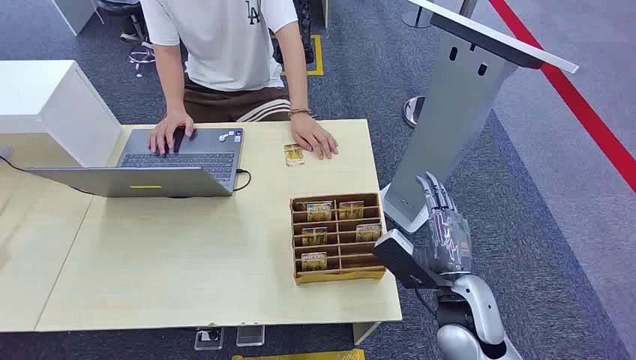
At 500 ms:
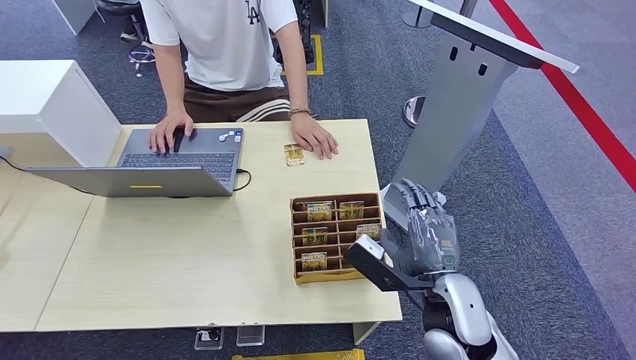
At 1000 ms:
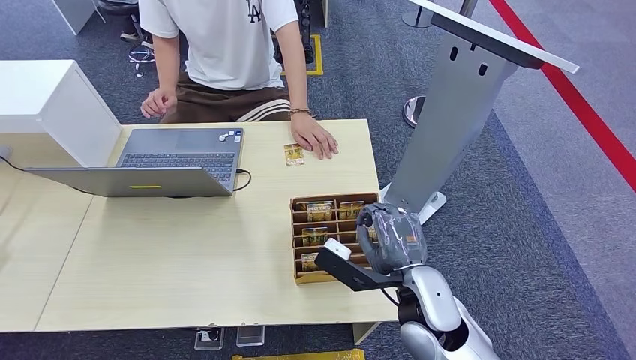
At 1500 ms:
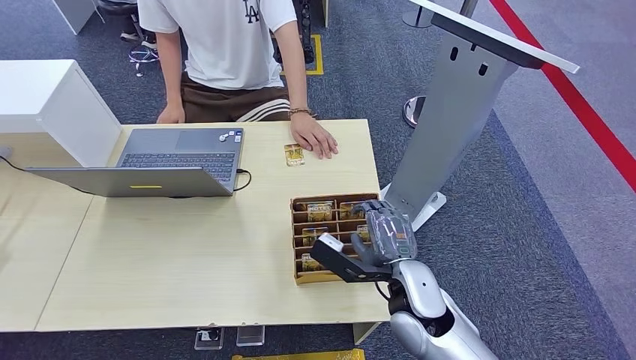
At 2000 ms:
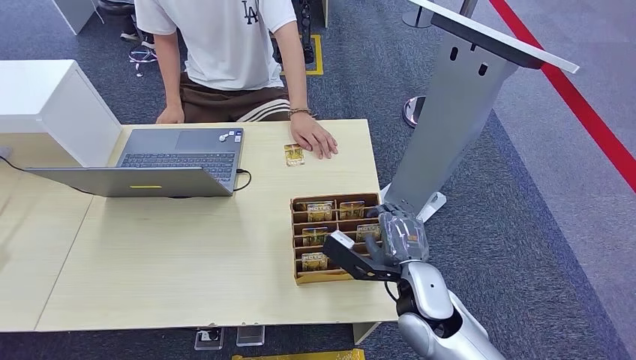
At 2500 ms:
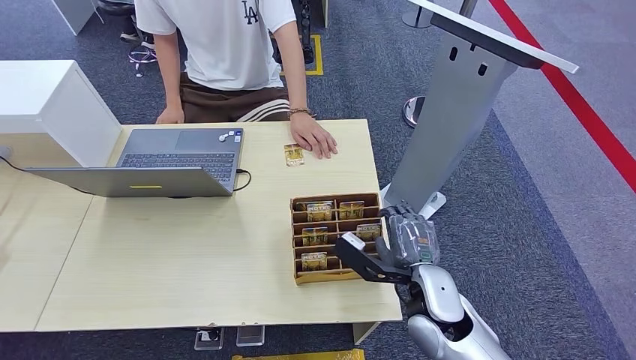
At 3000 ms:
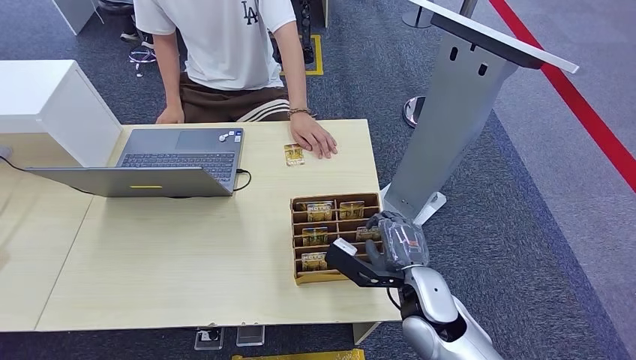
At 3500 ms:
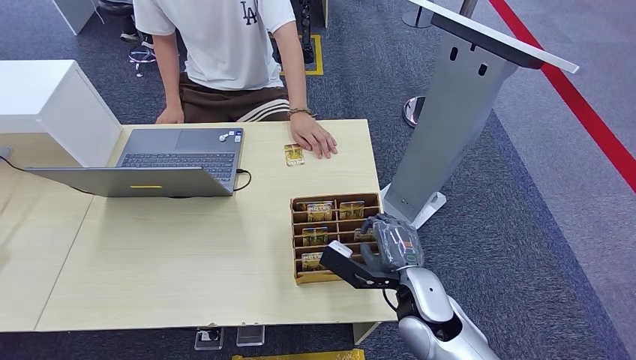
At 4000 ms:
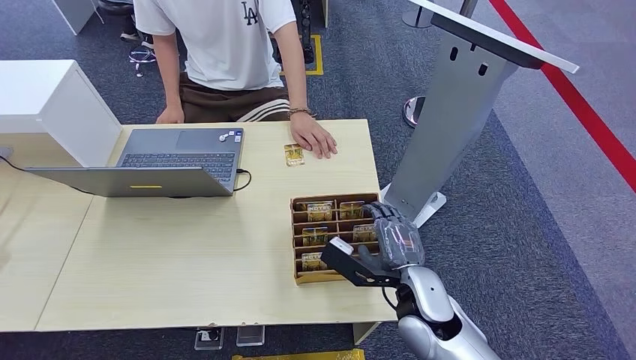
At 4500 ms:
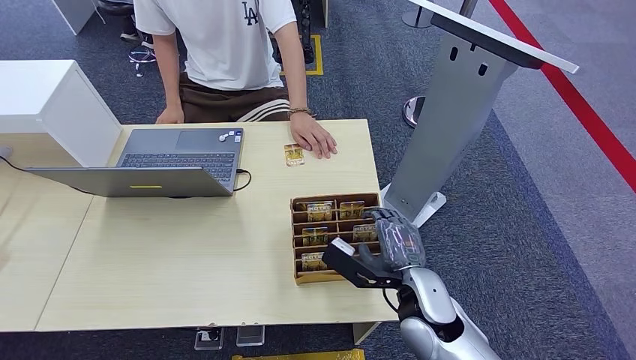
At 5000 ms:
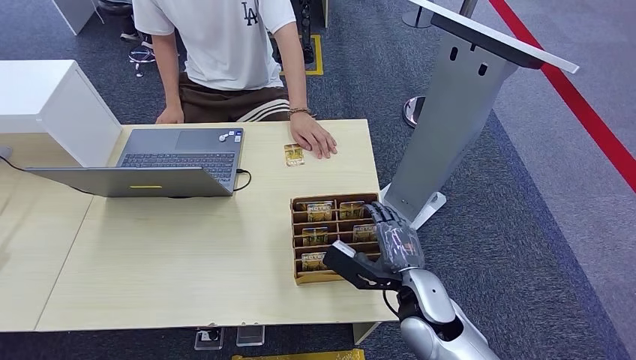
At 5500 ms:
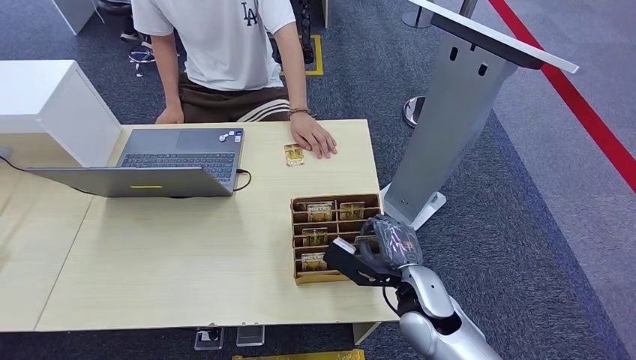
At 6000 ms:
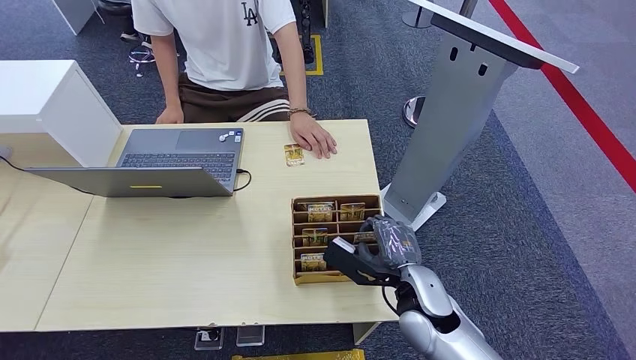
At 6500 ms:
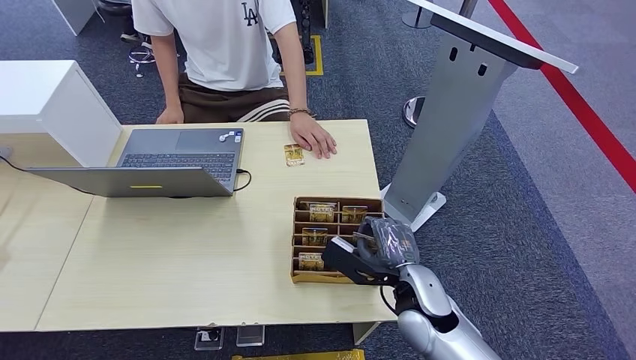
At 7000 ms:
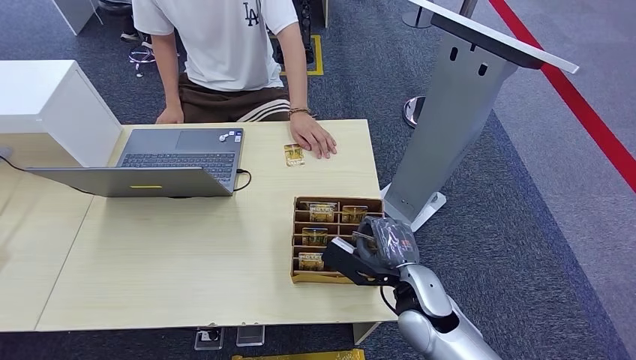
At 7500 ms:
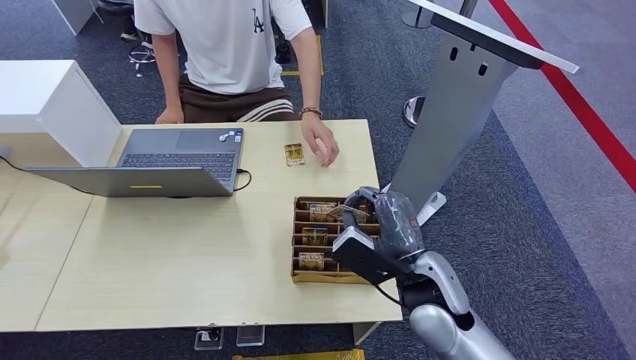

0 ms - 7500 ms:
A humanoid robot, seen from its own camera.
Task of the whole recording: Pick up the card and hand it to the target person.
Step, 0 ms - 6000 ms: Pick up the key card from the card box.
Step, 6500 ms - 7500 ms: Hand the key card to the target.
2000 ms - 4000 ms: The hands move only a little.
4000 ms - 5500 ms: The two hands keep their place.
5500 ms - 7500 ms: The right hand moves upward, approximately 5 cm.
